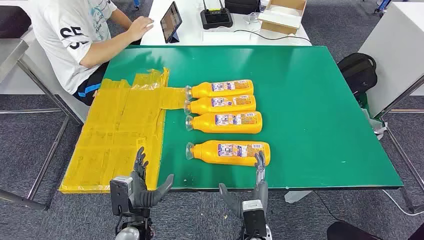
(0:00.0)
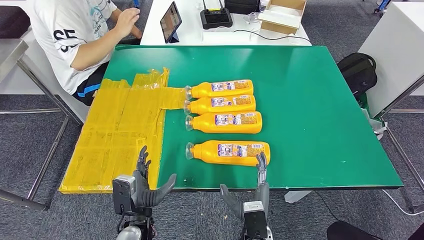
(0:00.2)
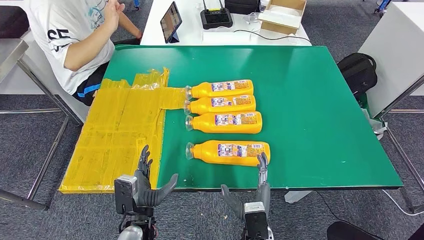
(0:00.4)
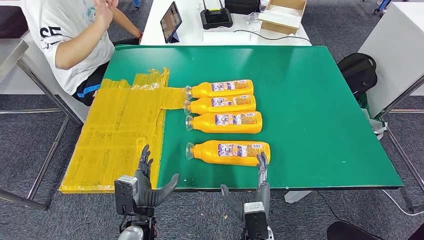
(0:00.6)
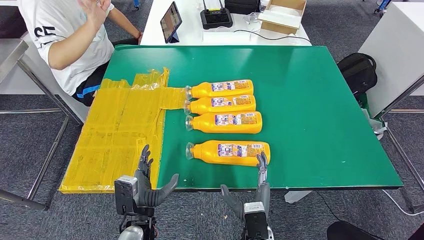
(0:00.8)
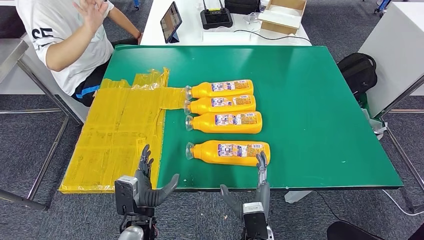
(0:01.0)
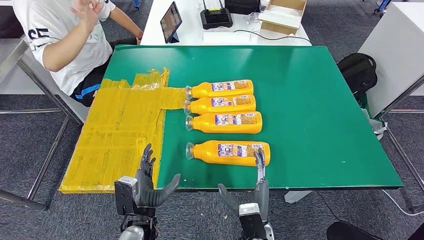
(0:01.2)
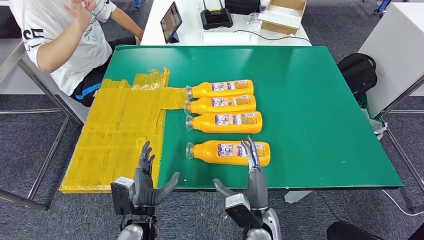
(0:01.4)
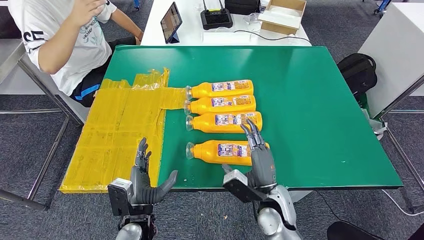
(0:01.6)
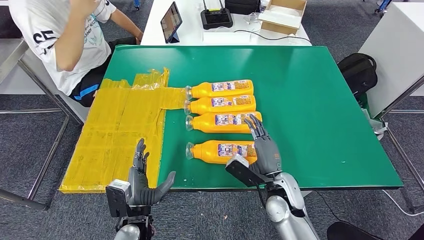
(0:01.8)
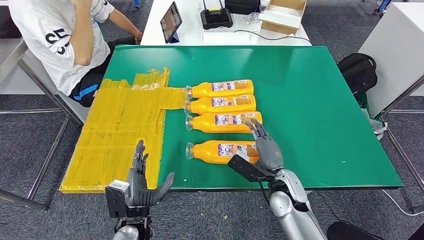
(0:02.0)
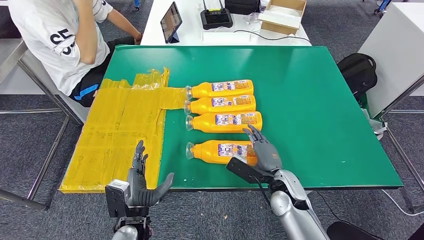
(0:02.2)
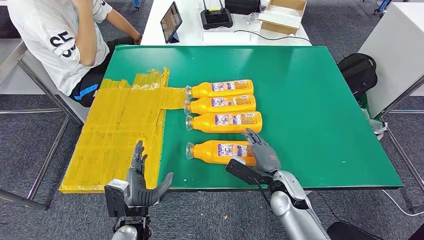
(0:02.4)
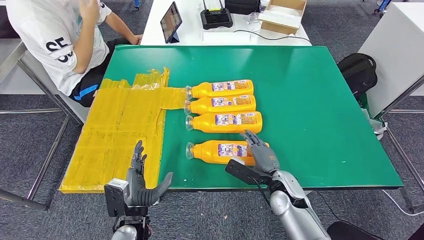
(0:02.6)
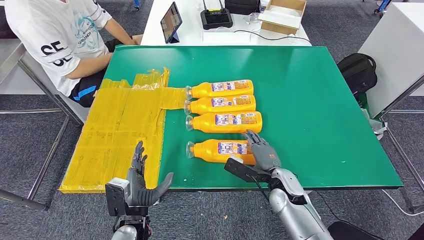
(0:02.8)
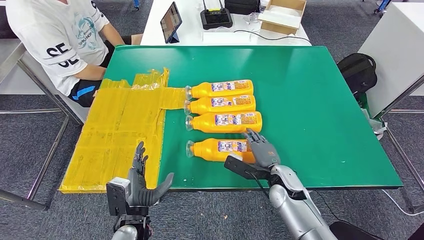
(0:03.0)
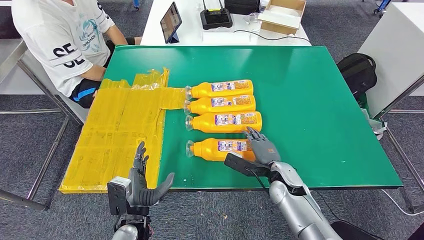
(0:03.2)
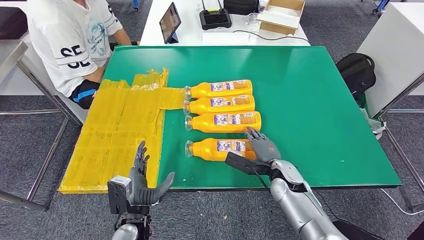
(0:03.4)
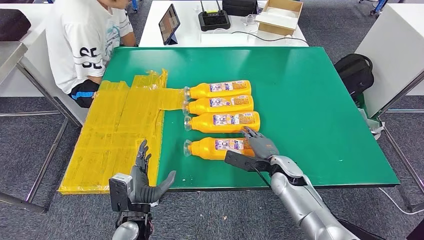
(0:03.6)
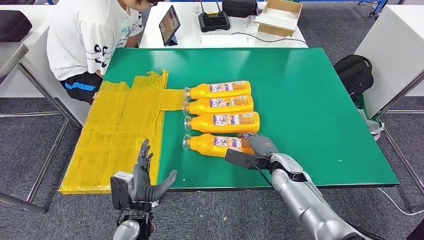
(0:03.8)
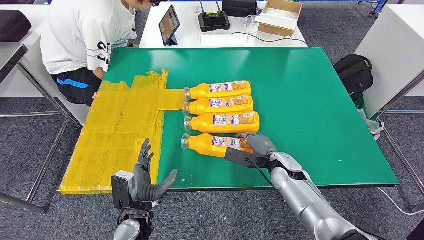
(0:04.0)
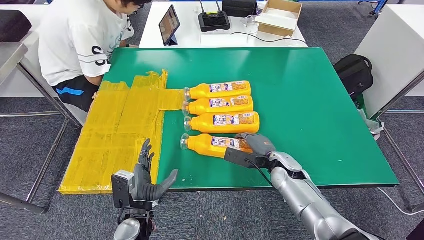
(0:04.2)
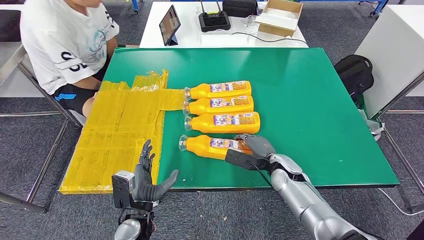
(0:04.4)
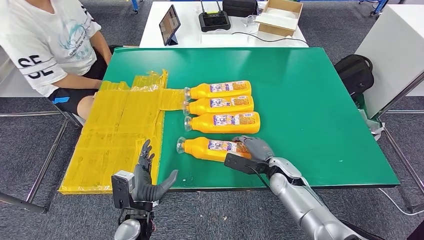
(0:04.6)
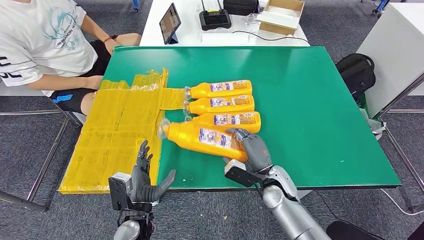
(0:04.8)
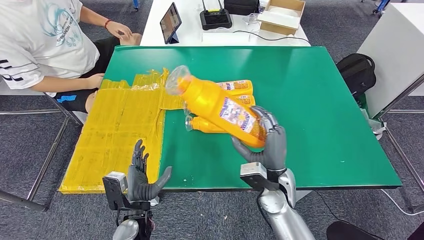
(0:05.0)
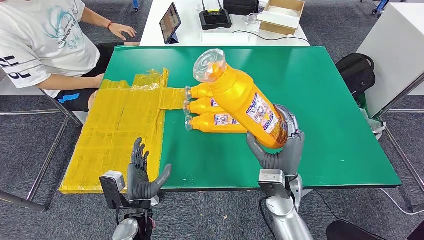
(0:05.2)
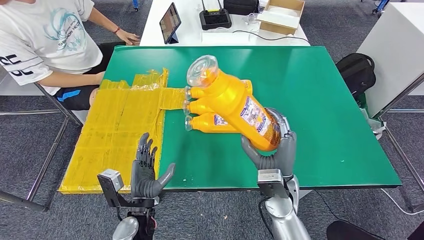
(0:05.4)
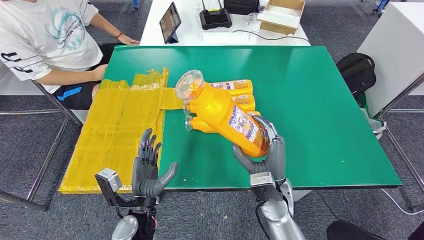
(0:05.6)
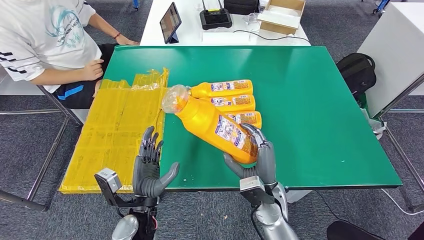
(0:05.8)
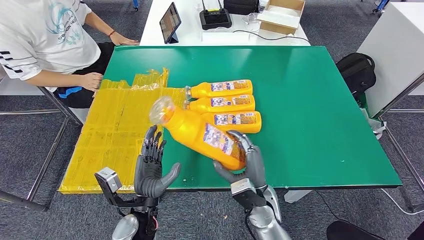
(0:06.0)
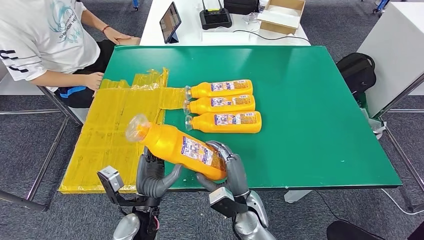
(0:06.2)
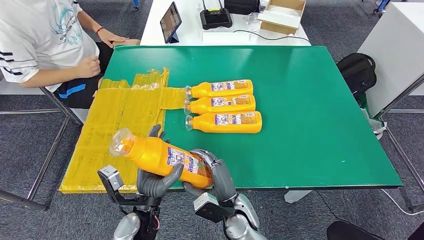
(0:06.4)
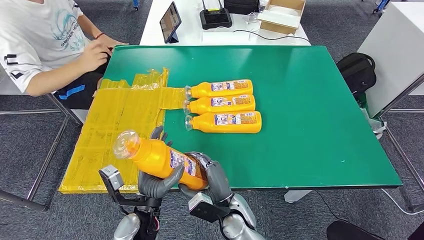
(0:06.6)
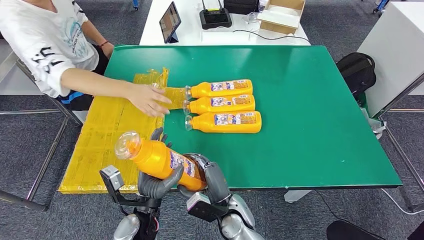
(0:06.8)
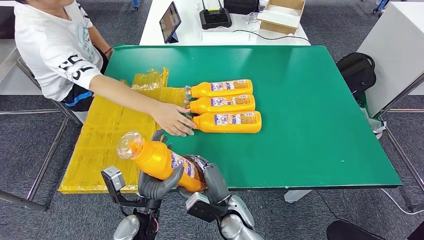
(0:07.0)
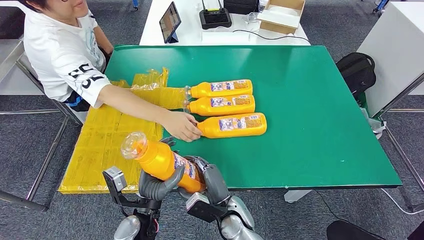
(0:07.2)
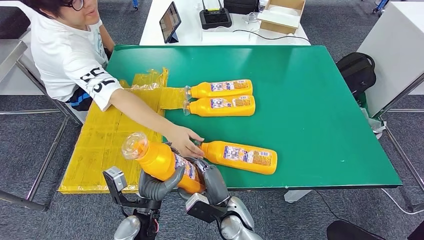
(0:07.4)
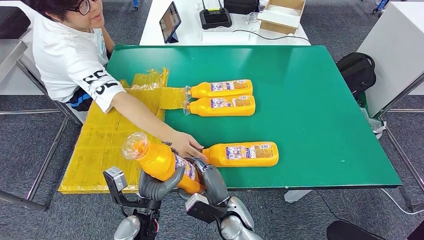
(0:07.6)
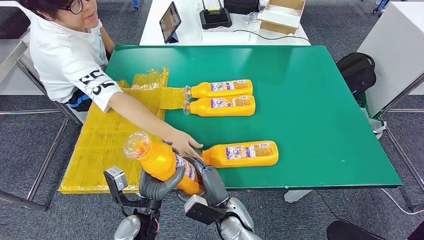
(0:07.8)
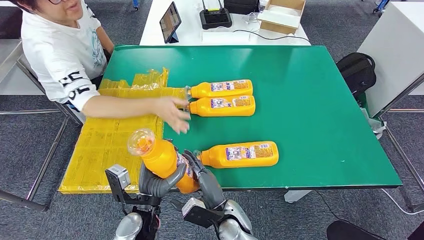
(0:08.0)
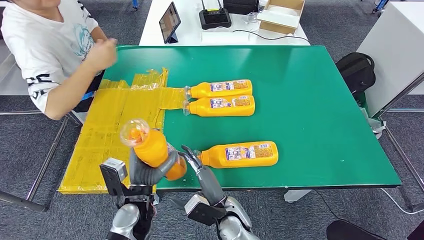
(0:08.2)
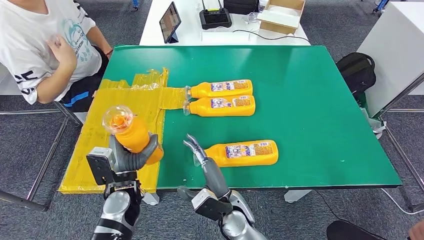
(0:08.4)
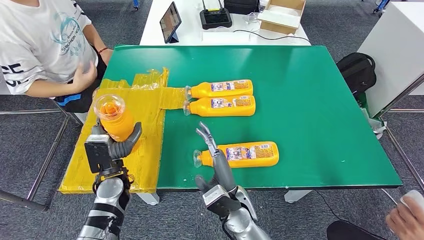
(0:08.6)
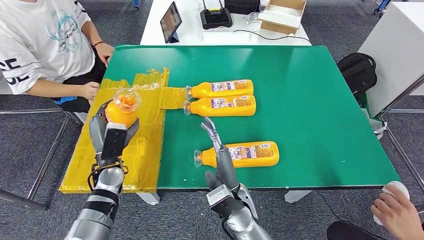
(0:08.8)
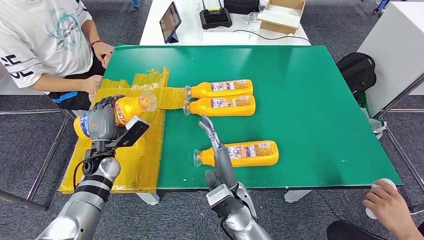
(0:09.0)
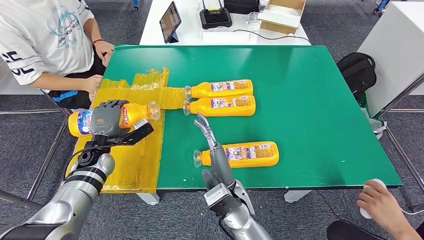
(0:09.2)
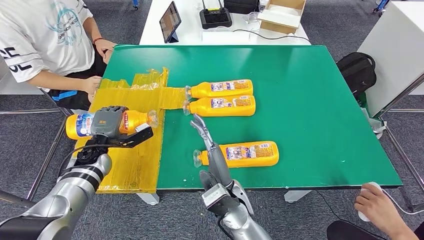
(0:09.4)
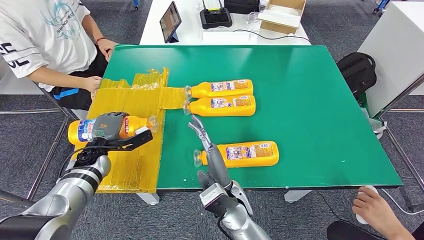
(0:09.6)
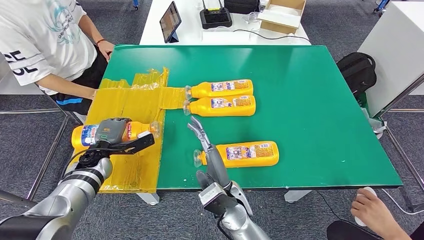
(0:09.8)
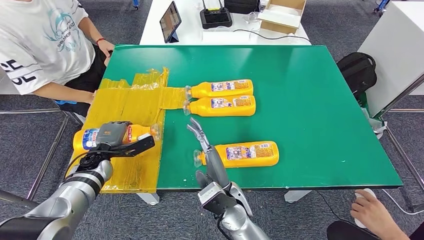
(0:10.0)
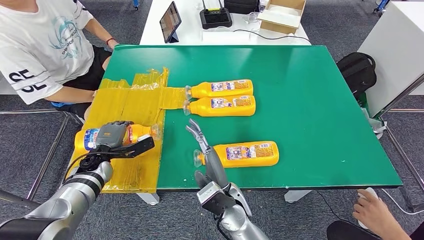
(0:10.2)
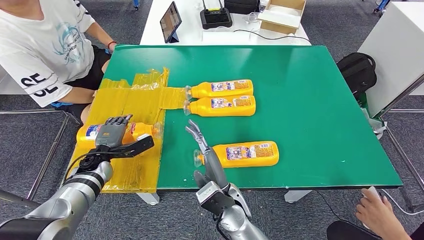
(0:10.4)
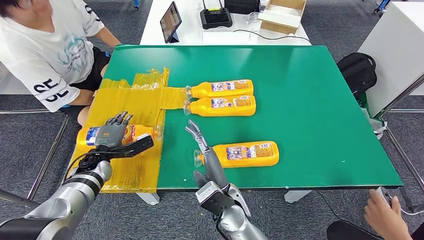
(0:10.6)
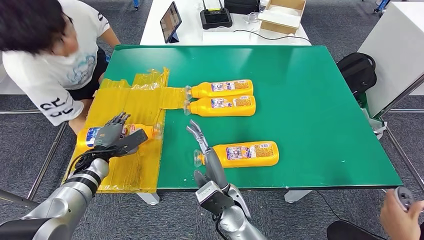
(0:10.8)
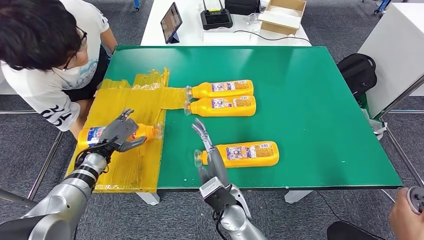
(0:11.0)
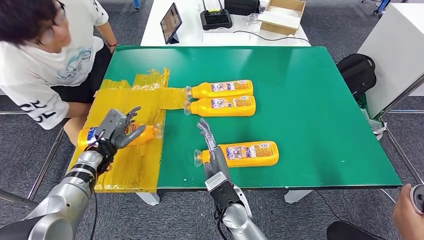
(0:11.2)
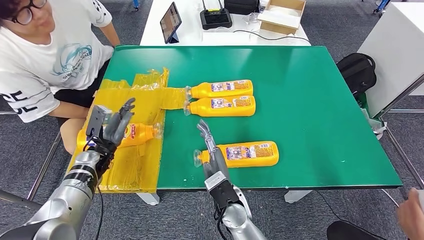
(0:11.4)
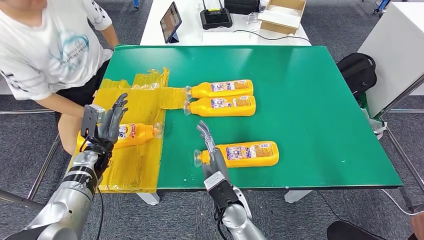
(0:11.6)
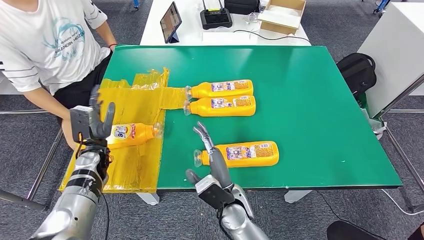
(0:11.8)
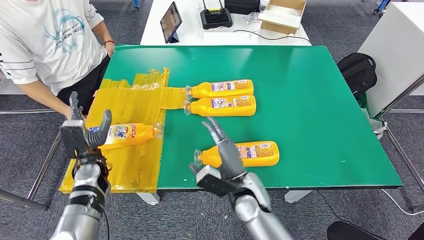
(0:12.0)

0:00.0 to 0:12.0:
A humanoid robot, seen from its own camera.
Step, 0:00.0 to 0:07.6: Take the fast-moving consumer goods bottle from the table.
0:01.6 to 0:03.0: The right hand goes roughly 5 cm forward.
0:09.0 to 0:10.4: The left hand shifts by some 5 cm.

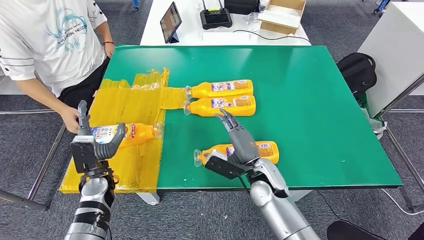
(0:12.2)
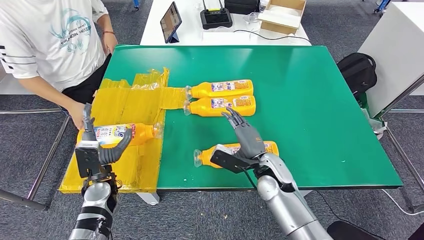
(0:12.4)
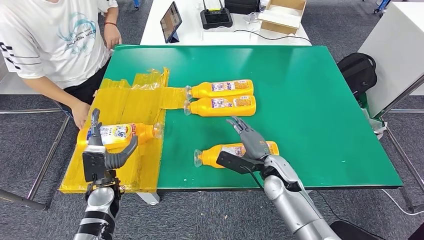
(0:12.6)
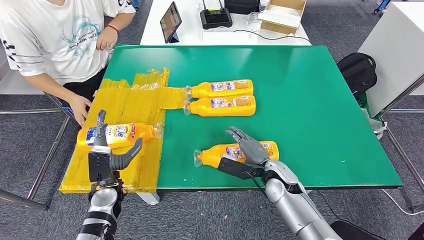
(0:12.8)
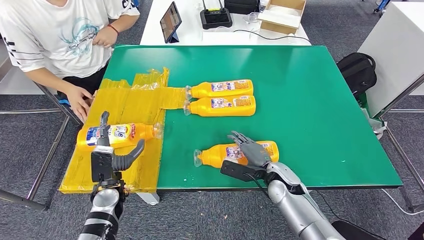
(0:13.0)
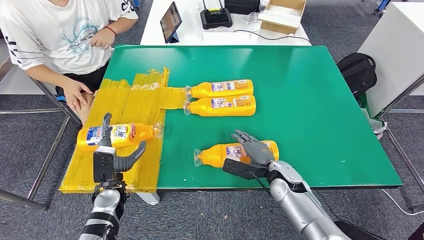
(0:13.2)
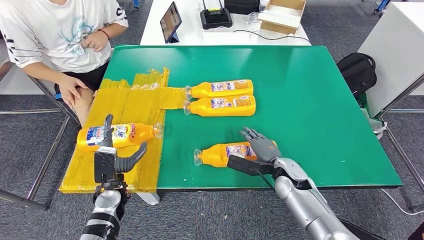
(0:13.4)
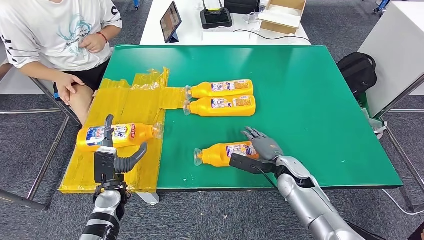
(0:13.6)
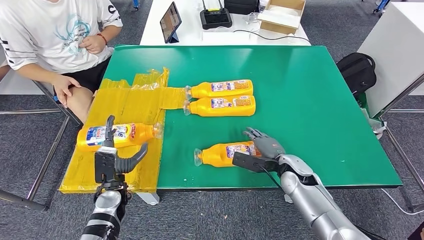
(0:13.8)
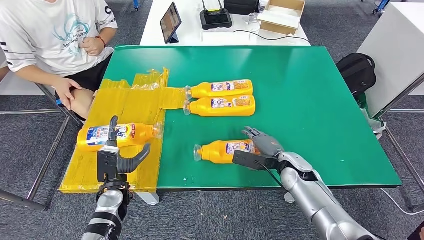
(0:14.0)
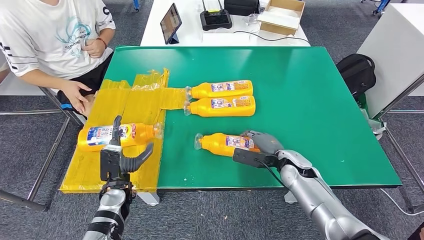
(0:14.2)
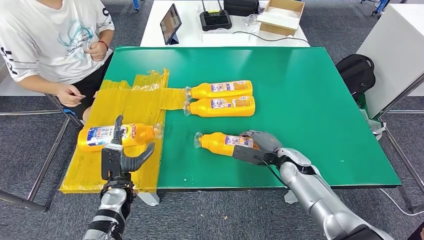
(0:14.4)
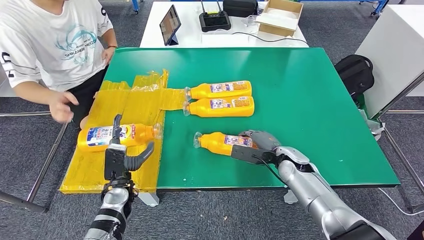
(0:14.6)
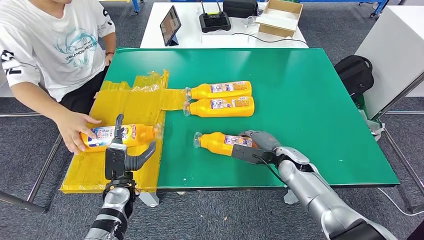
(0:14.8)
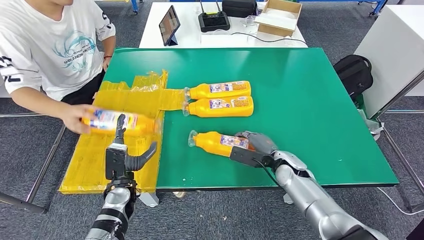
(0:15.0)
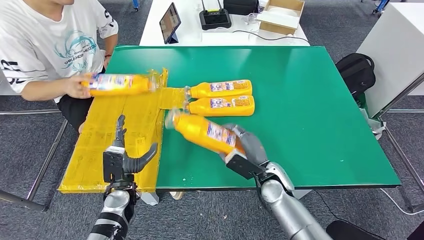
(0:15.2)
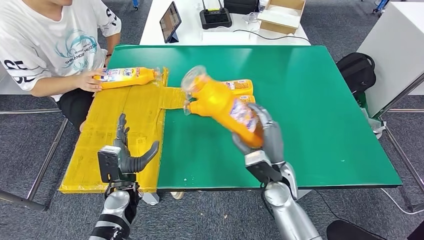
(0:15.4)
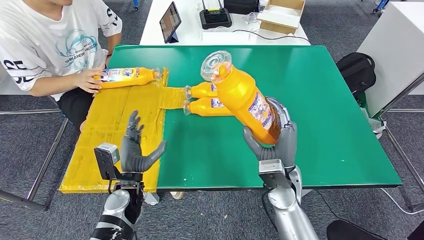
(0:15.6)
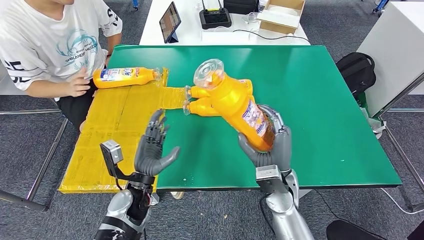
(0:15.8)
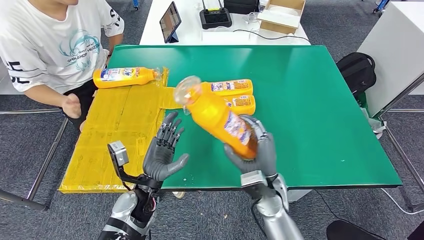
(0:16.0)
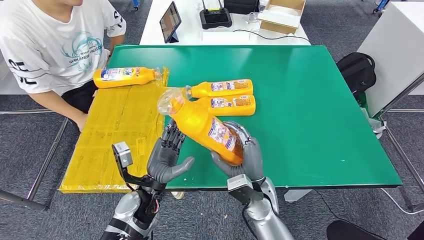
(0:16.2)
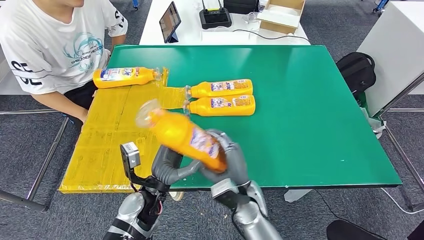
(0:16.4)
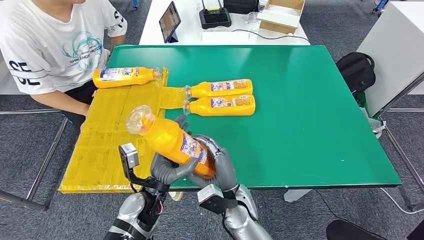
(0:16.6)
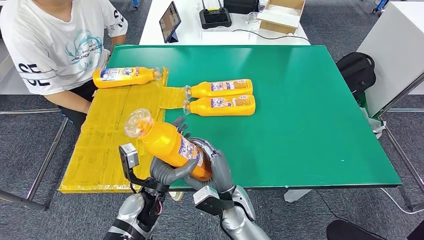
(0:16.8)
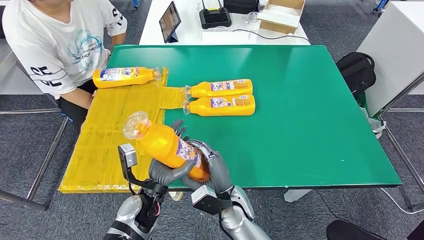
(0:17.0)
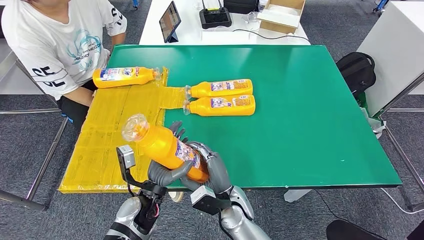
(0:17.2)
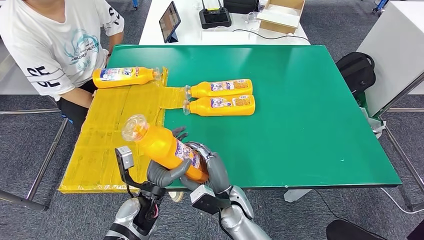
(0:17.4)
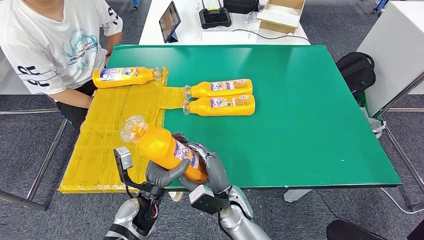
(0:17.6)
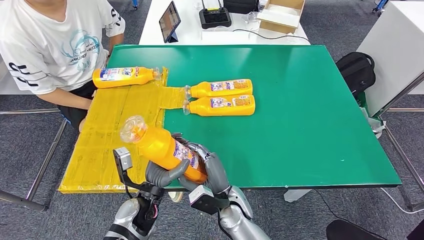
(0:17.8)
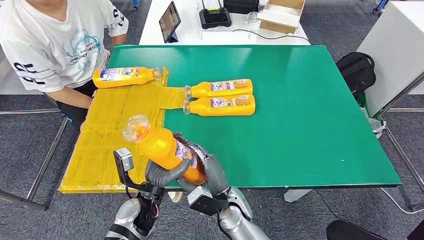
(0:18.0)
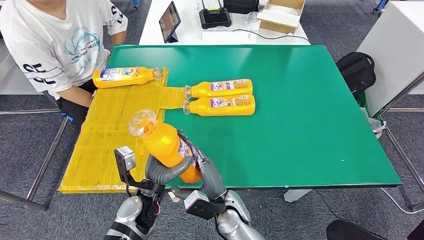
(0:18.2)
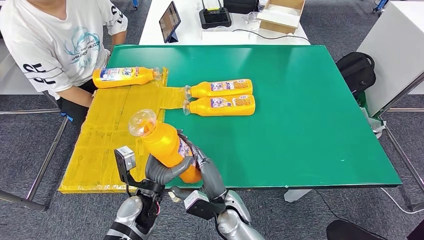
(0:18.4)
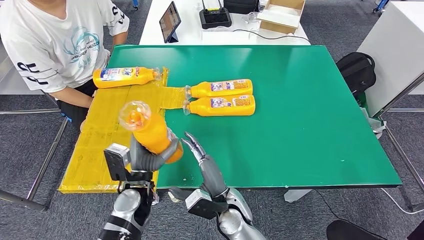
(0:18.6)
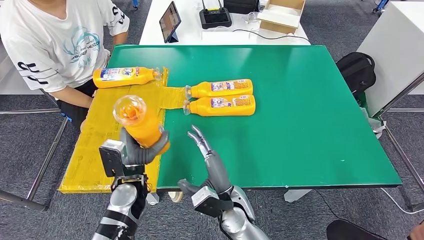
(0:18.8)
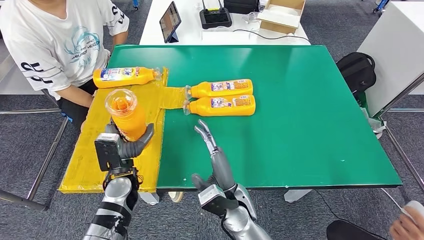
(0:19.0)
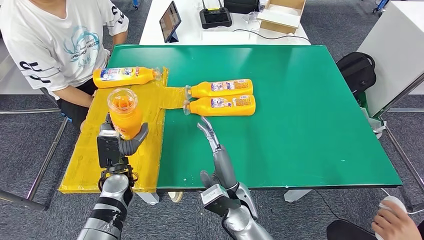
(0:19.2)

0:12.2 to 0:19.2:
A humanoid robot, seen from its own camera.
Step, 0:12.8 to 0:16.2: Pick up the fast-moving consumer goods bottle from the table.
0:12.2 to 0:13.6: The right hand shifts approximately 10 cm to the right.
0:16.4 to 0:17.8: The right hand moves approximately 5 cm.
0:17.8 to 0:19.2: The right hand shifts roughly 5 cm upward, while the left hand travels to the left and forward by some 10 cm.